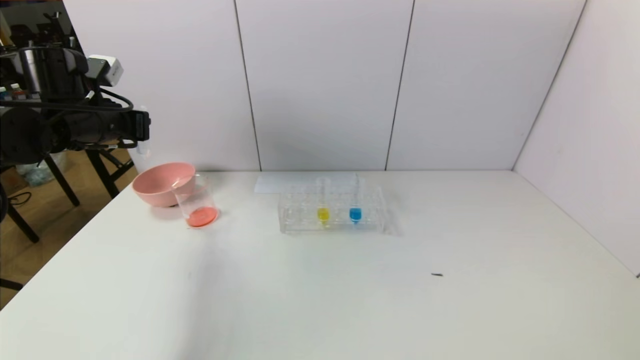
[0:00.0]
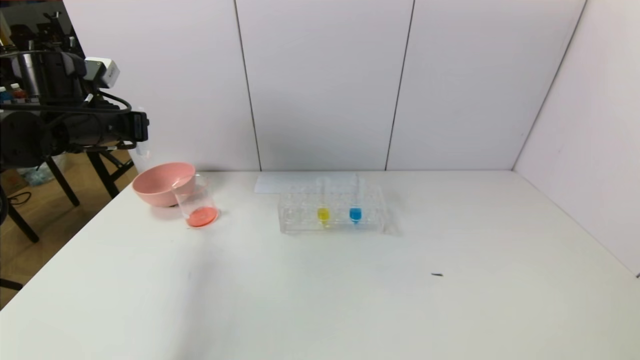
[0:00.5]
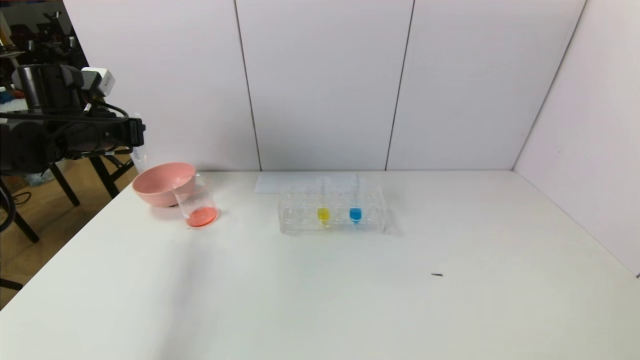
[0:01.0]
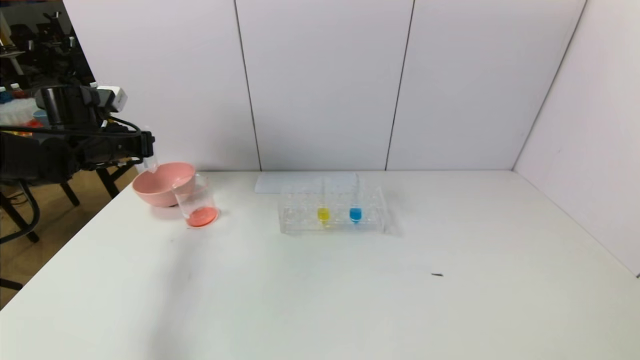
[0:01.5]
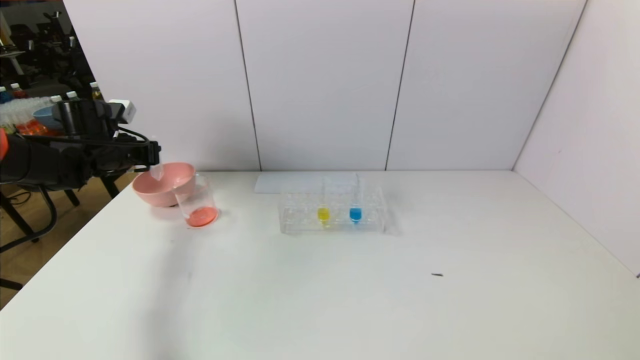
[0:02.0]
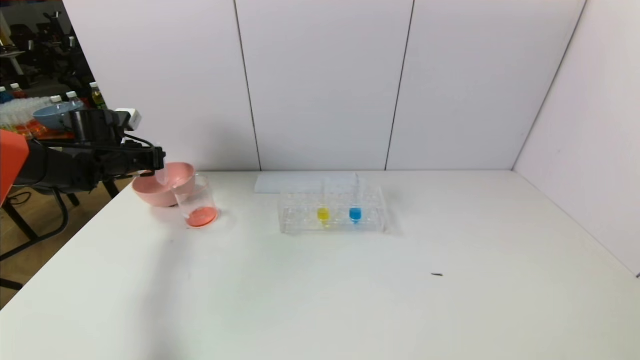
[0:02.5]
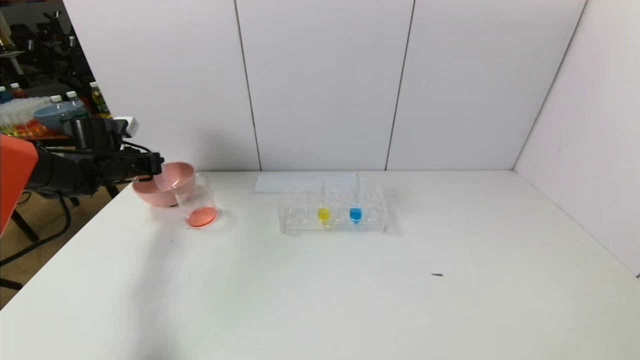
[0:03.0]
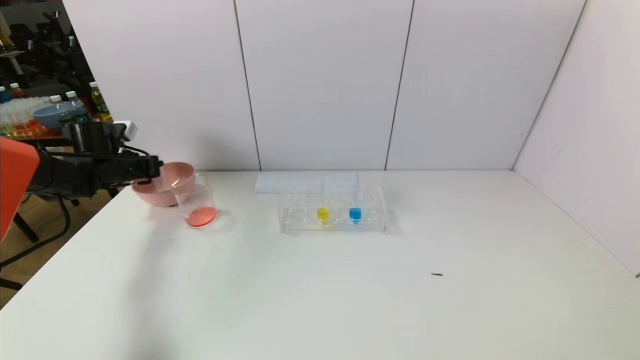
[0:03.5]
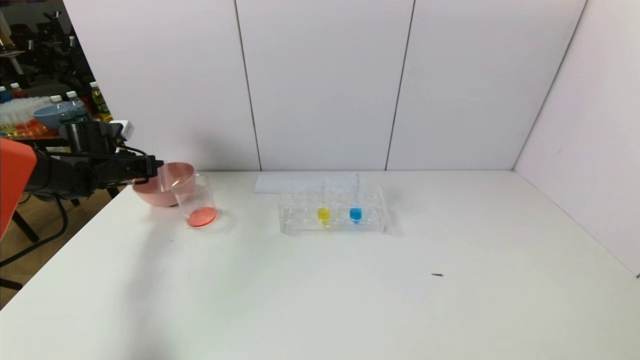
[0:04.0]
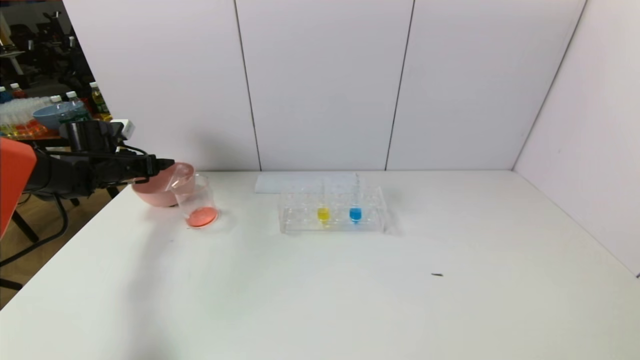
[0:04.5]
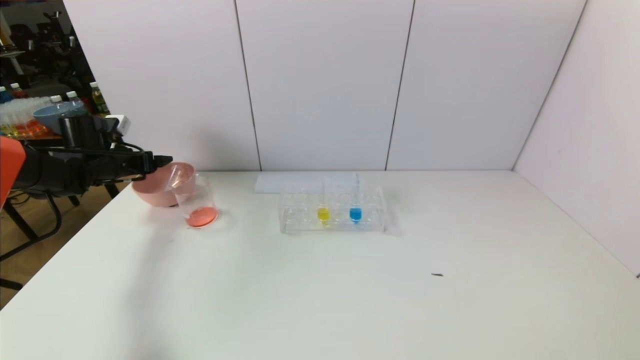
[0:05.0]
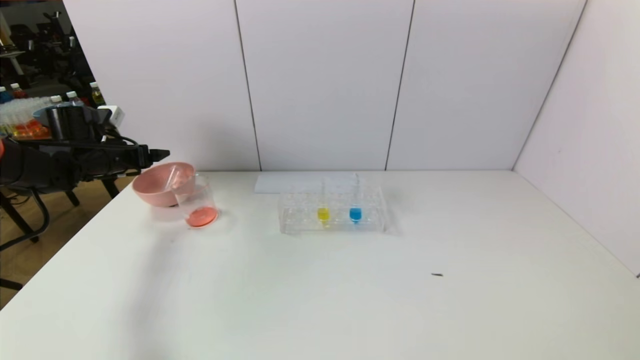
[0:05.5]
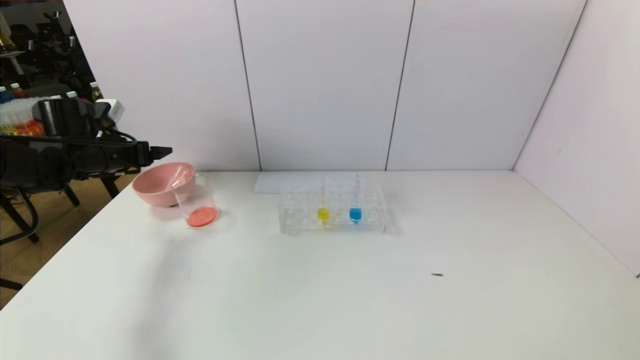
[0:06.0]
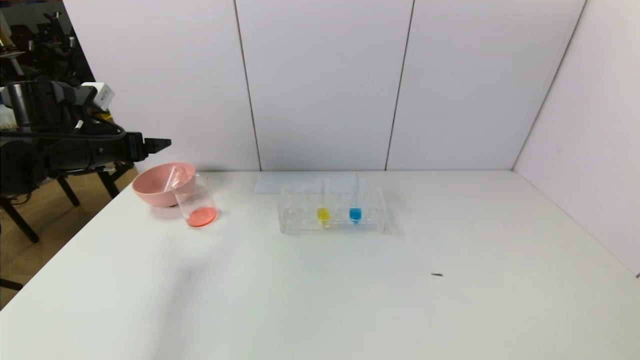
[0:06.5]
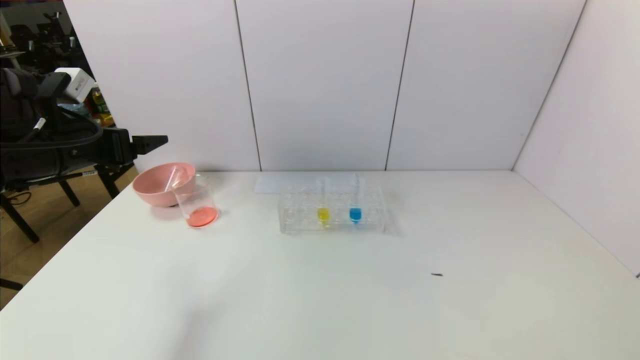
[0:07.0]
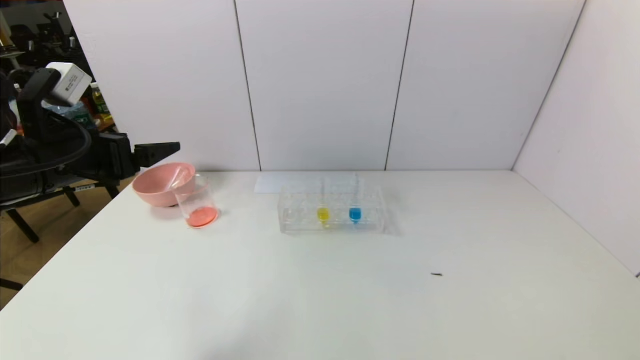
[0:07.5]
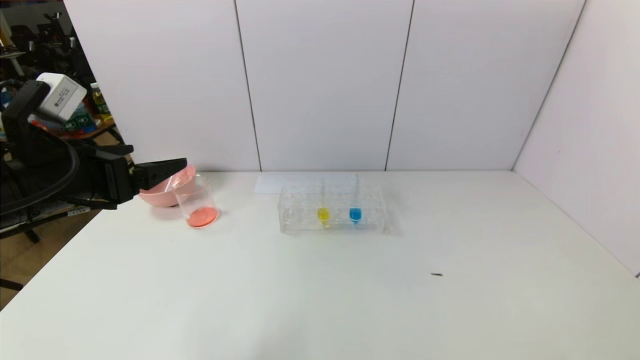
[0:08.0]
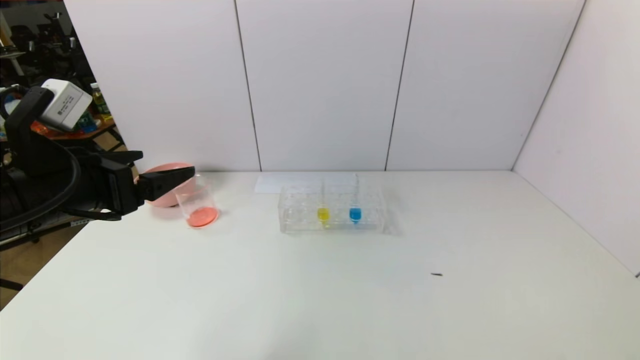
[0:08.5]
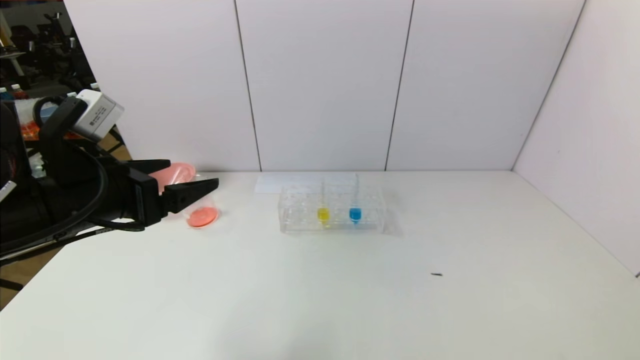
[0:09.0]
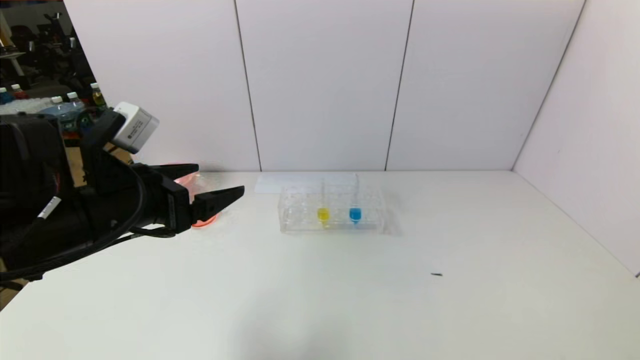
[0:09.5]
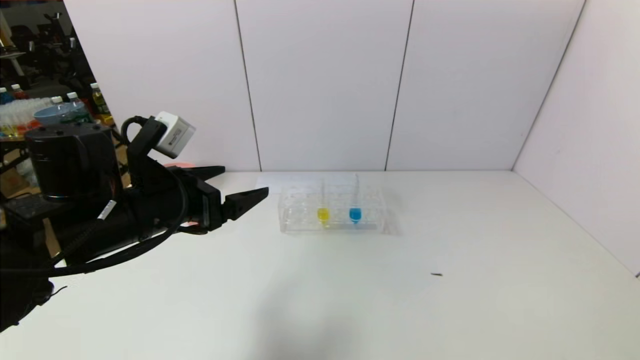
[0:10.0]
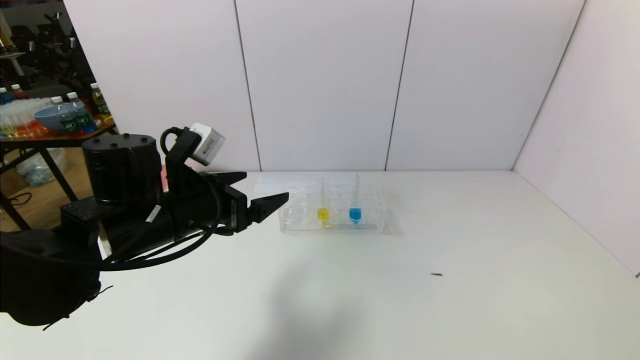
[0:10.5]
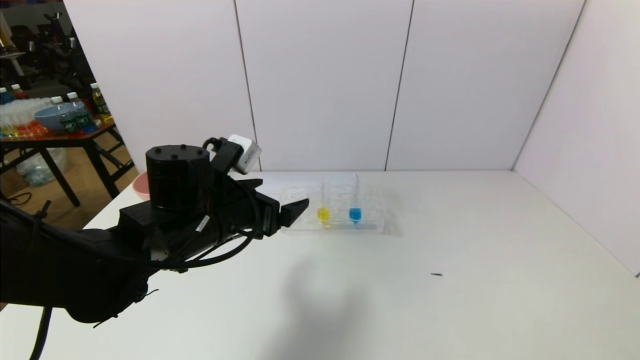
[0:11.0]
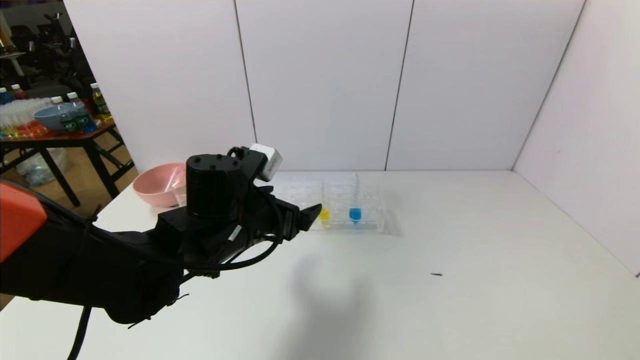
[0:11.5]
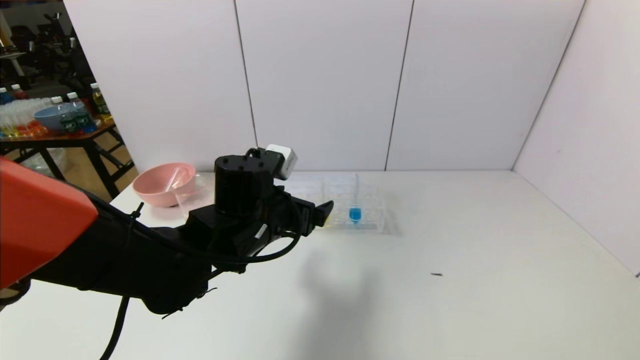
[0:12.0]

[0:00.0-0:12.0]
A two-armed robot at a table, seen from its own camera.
Task of the whole recording: pick up the test tube with yellow pigment and the test tube with red pigment by grippers and pour them into the beaker.
Step, 0:00.0 to 0:04.0: Place the test tube into the pink bowl with the left gripper.
0:00.0 to 0:02.0: The left gripper moves downward and forward, roughly 10 cm.
0:02.0 to 0:04.0: The left gripper changes place by roughly 5 cm.
0:04.0 to 0:06.0: The left gripper shifts approximately 10 cm upward and backward, and opens up.
0:06.0 to 0:08.0: The left gripper is displaced backward and to the right by approximately 20 cm.
0:08.0 to 0:10.0: The left gripper travels to the right by about 10 cm.
0:10.0 to 0:12.0: The left gripper travels to the right and downward by some 15 cm.

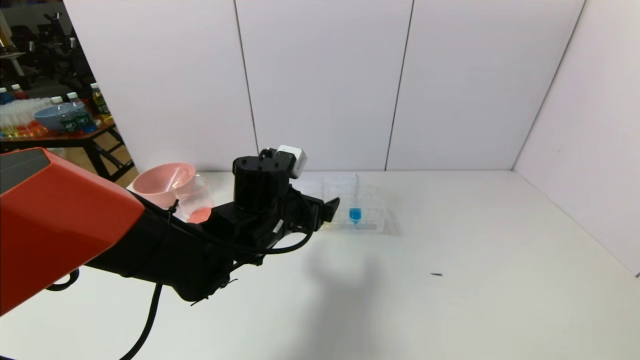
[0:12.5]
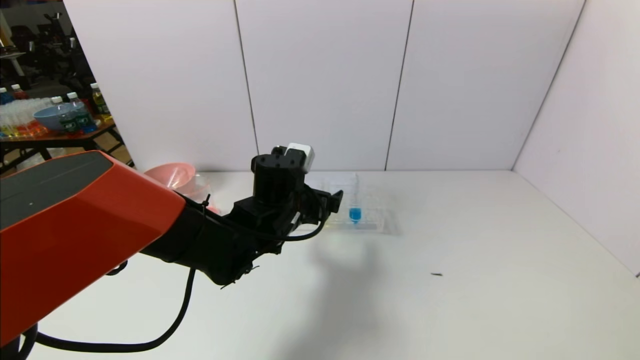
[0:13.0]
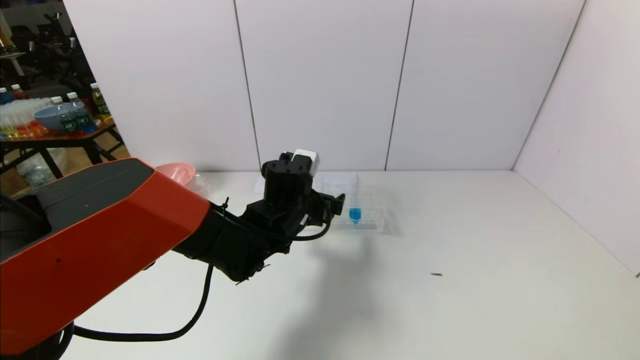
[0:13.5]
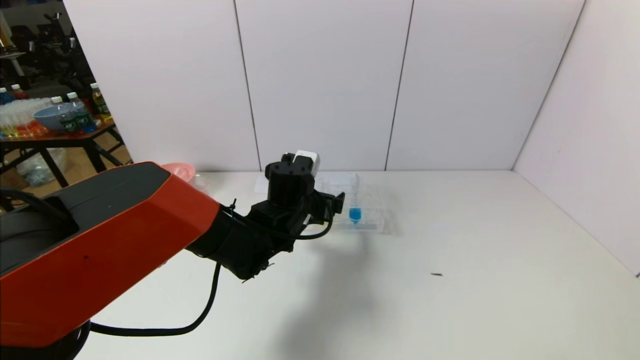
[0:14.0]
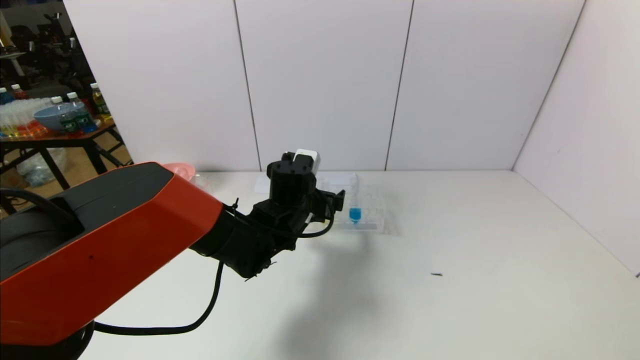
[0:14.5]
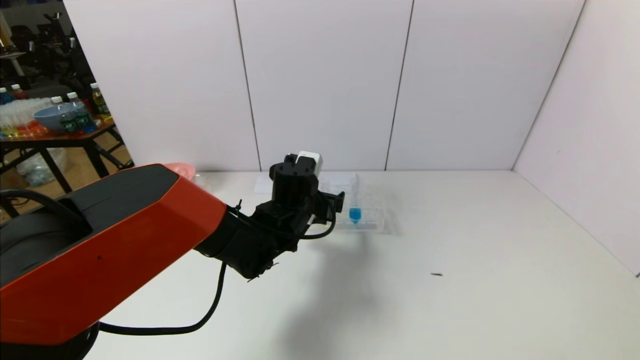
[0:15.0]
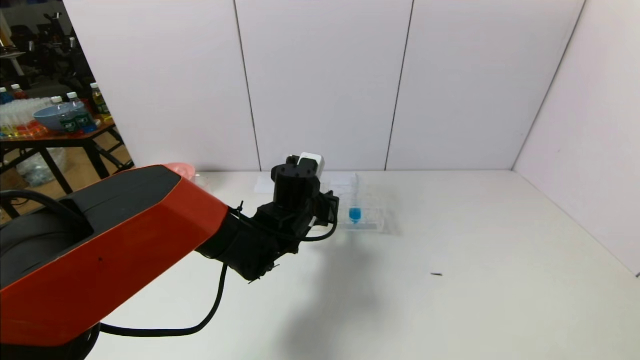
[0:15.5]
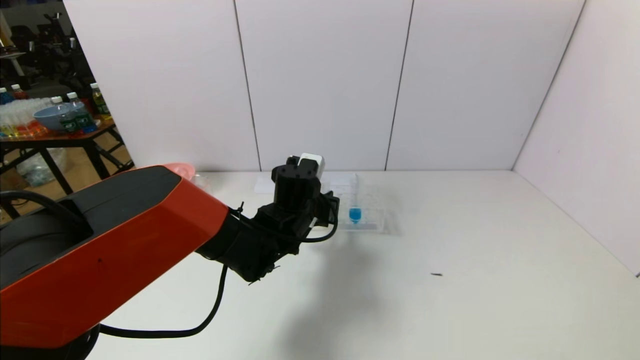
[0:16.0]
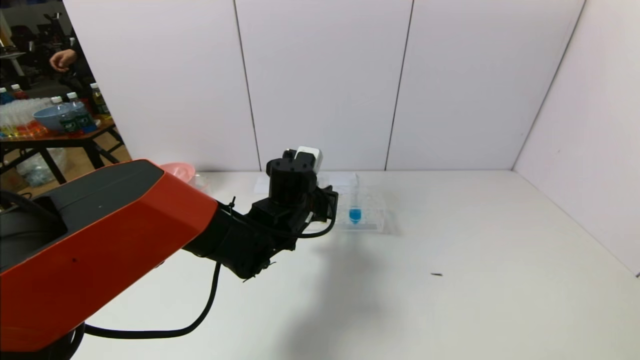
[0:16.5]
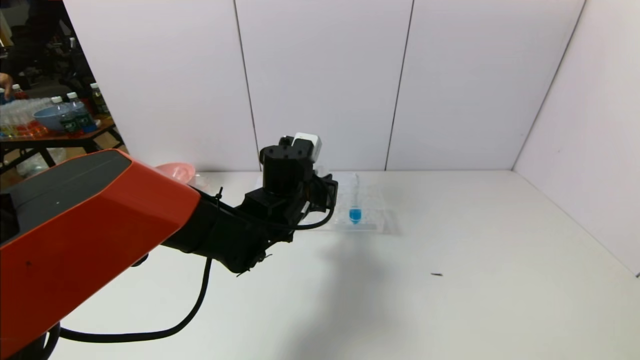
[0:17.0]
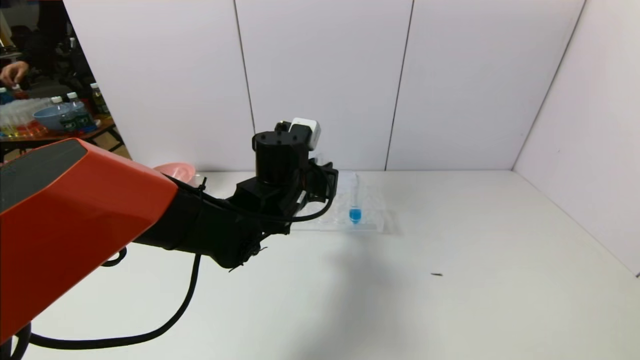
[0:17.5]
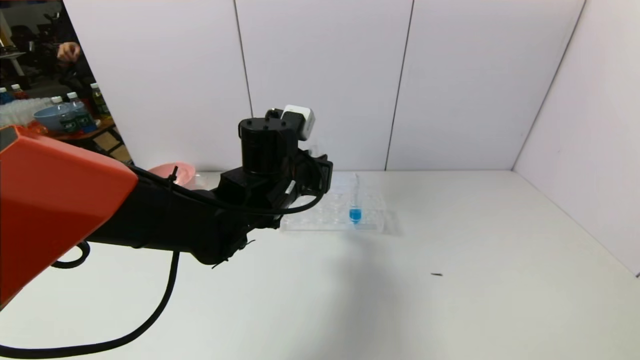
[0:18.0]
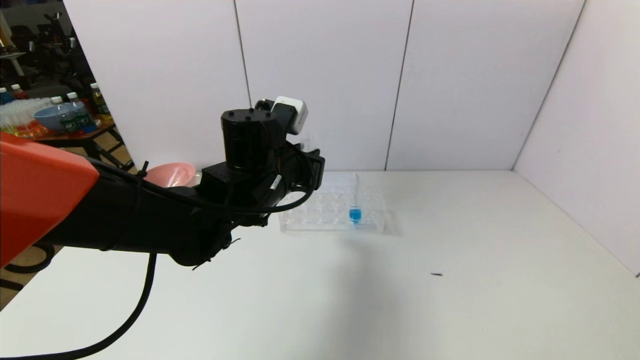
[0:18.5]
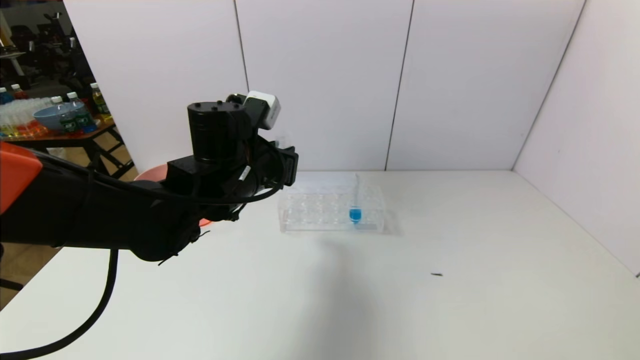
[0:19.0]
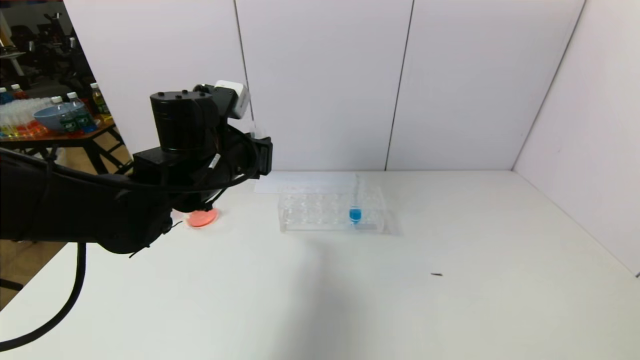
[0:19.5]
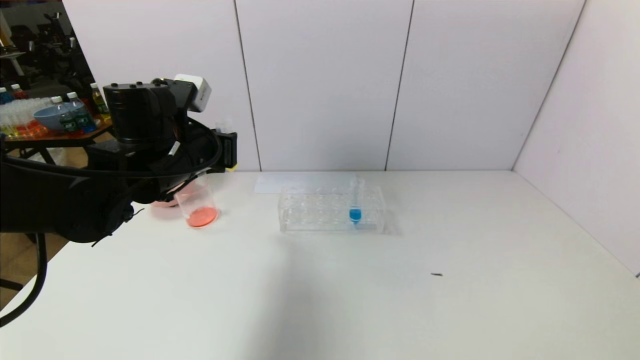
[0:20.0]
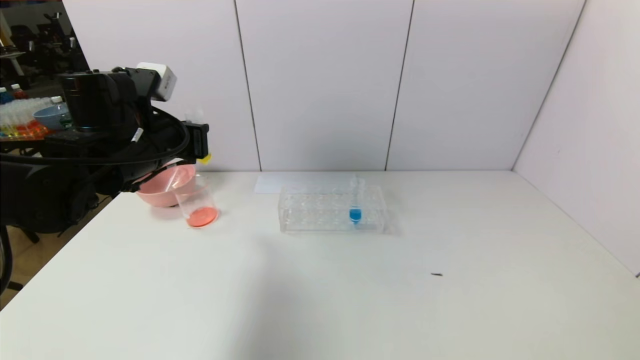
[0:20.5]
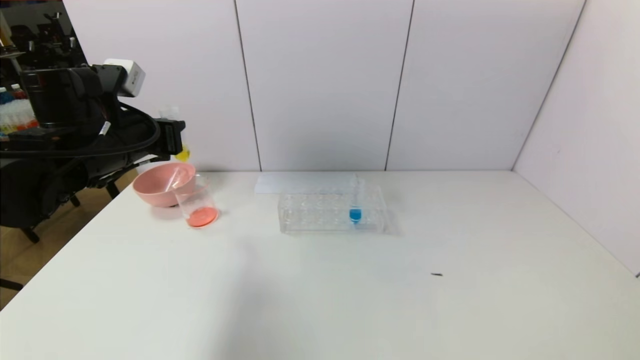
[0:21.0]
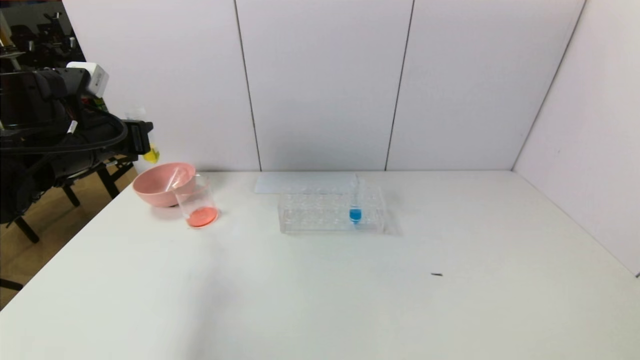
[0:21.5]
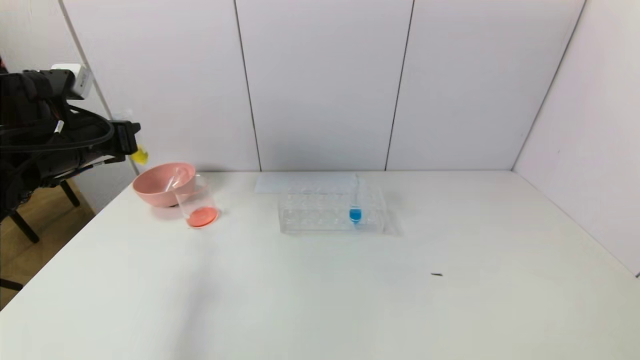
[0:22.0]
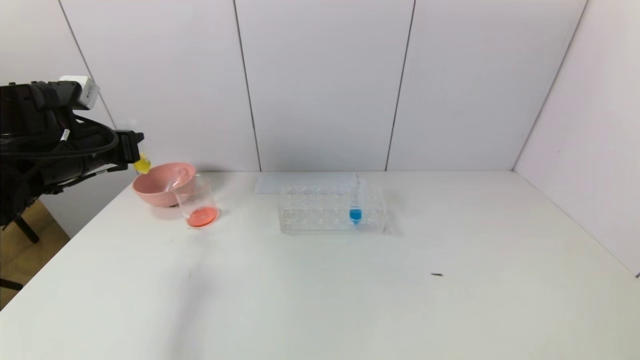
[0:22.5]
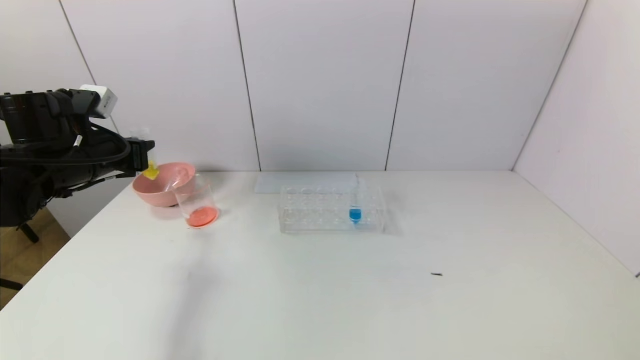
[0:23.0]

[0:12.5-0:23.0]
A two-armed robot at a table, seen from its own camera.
Task of the whole recording: pick up the test tube with yellow pigment and the test tube with red pigment by grippers and pour them into the beaker.
Step, 0:12.5 to 0:15.5: Grasp the yellow reagent with the left gripper.
0:12.5 to 0:14.5: The left gripper shifts roughly 5 cm forward.
0:14.5 to 0:16.5: The left gripper closes up.
0:16.5 to 0:19.0: The left gripper travels upward and to the left by approximately 10 cm.
0:19.0 to 0:21.0: The left gripper goes about 15 cm to the left.
0:21.0 to 0:23.0: The left gripper heads to the left, covering about 5 cm.
